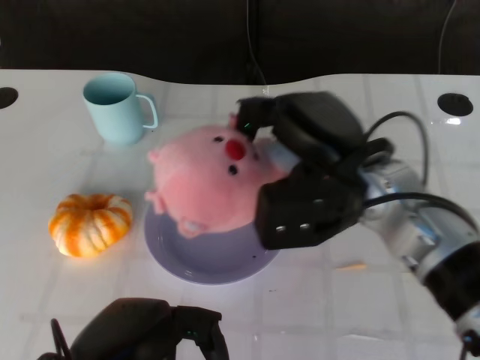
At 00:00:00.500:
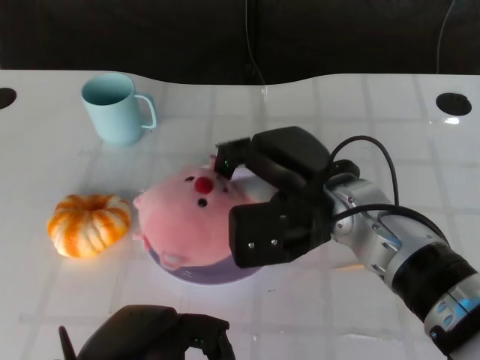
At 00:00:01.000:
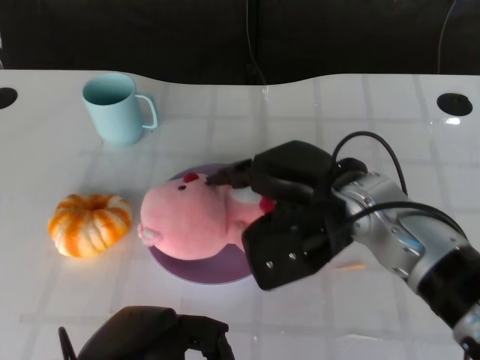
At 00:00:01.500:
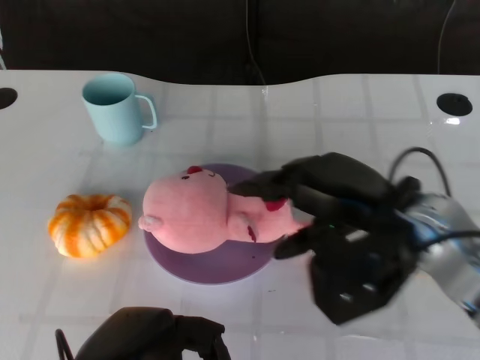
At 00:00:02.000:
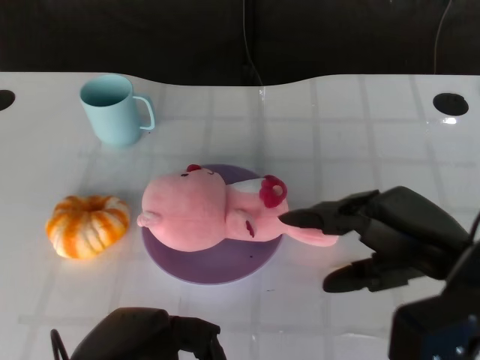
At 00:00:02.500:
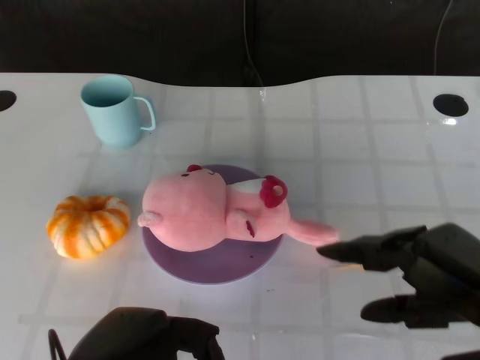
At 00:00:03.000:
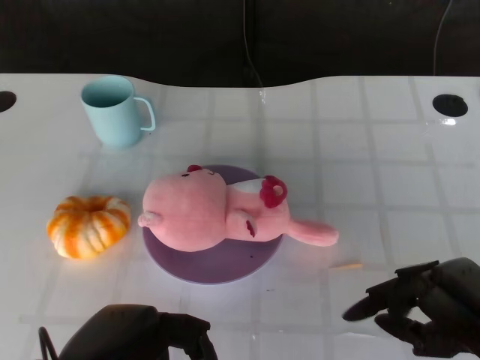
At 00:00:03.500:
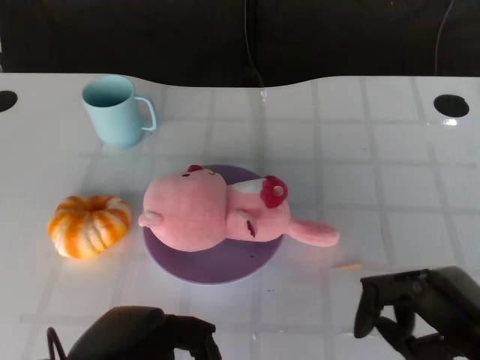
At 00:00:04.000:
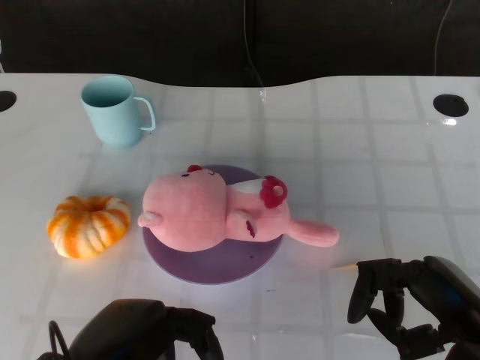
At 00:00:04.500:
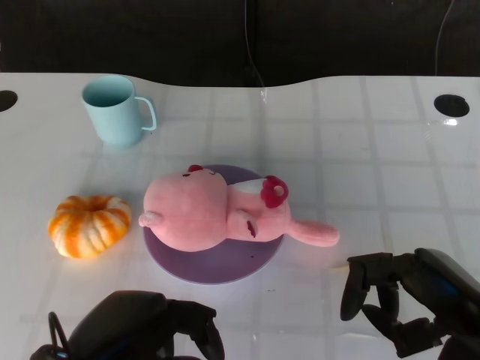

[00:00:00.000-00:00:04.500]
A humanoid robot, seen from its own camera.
Task of the whole recording: Pick up the doll on the other side of the plate and place it into the plate.
Step, 00:00:00.000 to 00:00:01.500: Place the pink doll into the plate with the right gripper.
00:00:00.000 to 00:00:02.000: The right hand shifts about 10 cm to the right and backward.
00:00:02.000 to 00:00:04.500: The right hand changes place by approximately 5 cm.

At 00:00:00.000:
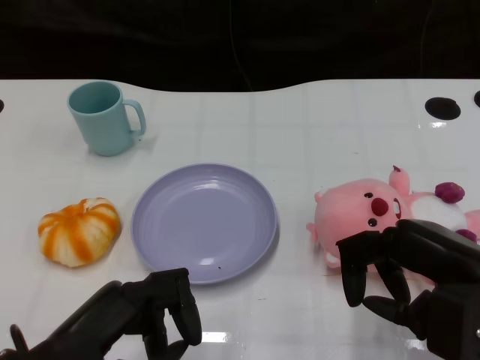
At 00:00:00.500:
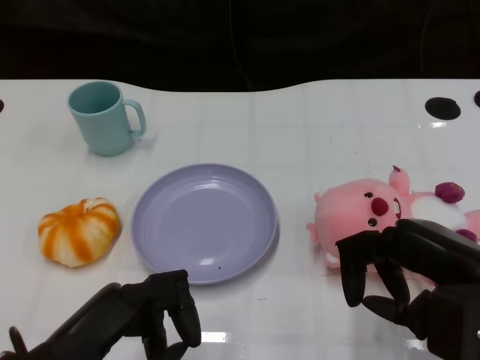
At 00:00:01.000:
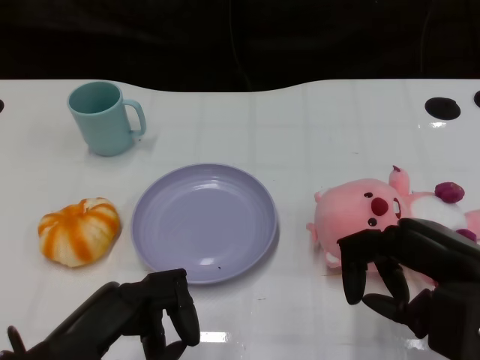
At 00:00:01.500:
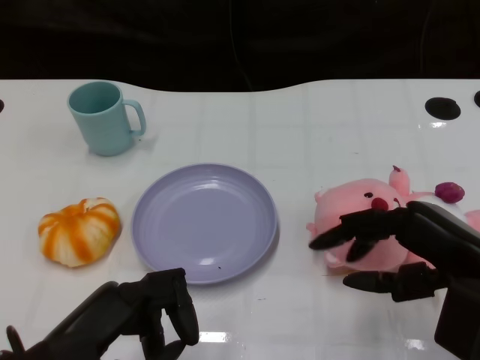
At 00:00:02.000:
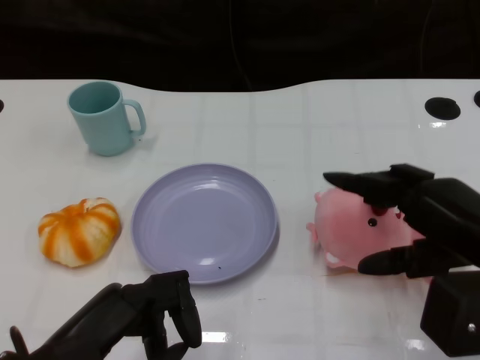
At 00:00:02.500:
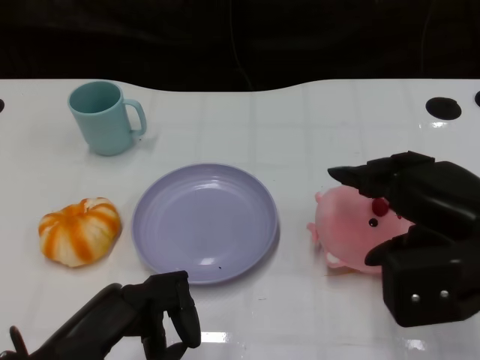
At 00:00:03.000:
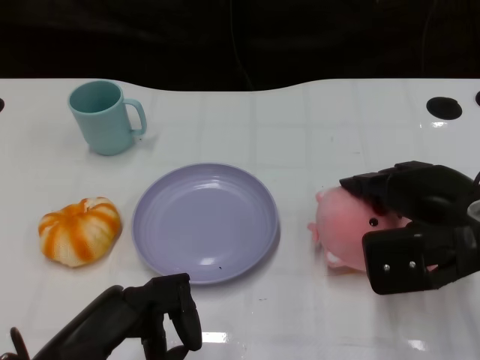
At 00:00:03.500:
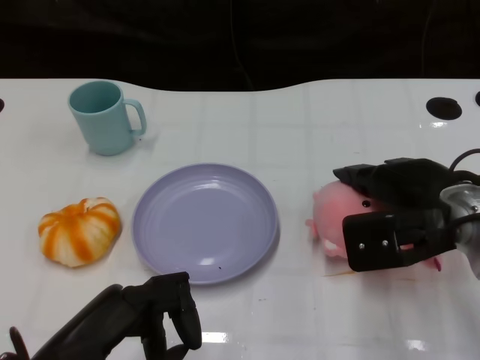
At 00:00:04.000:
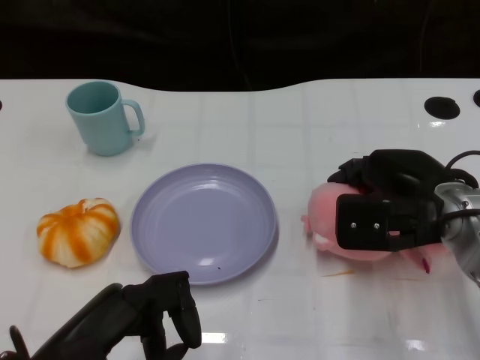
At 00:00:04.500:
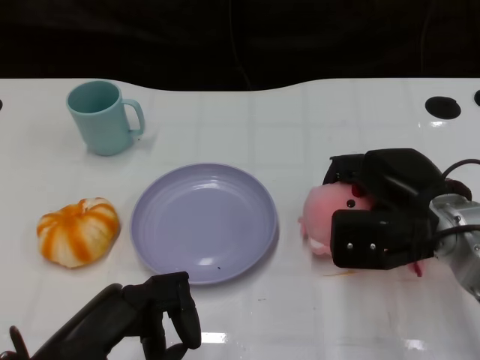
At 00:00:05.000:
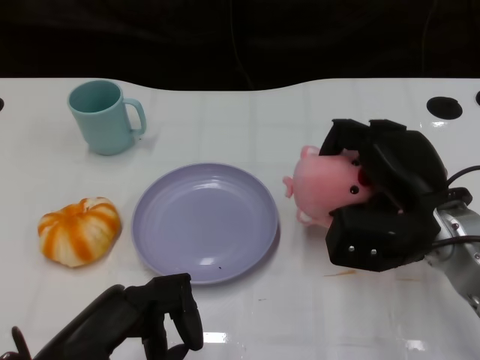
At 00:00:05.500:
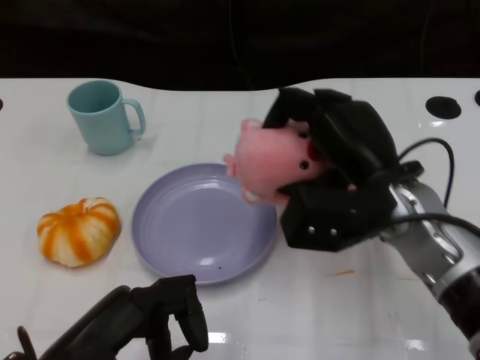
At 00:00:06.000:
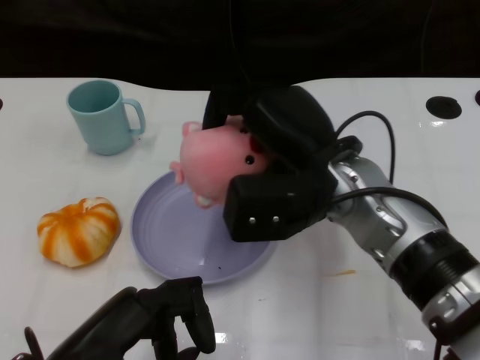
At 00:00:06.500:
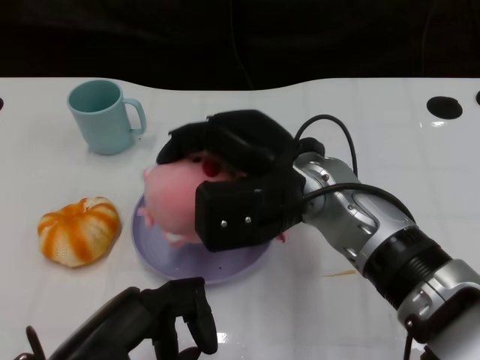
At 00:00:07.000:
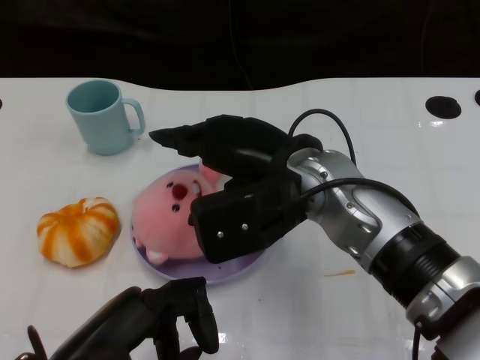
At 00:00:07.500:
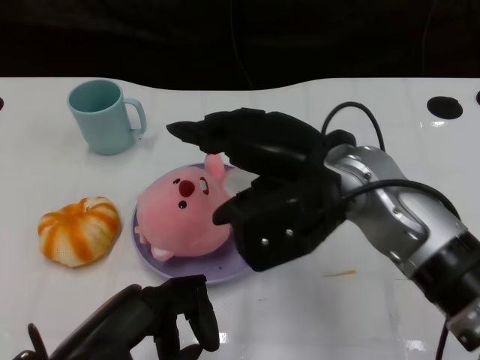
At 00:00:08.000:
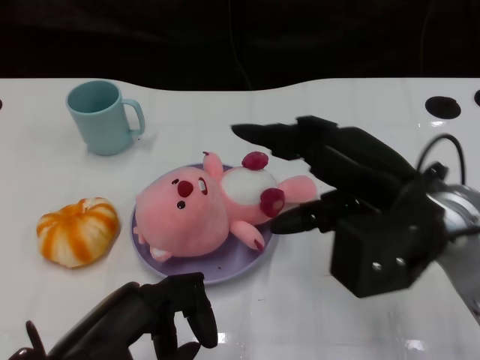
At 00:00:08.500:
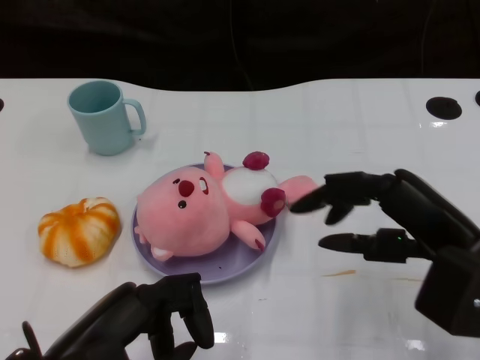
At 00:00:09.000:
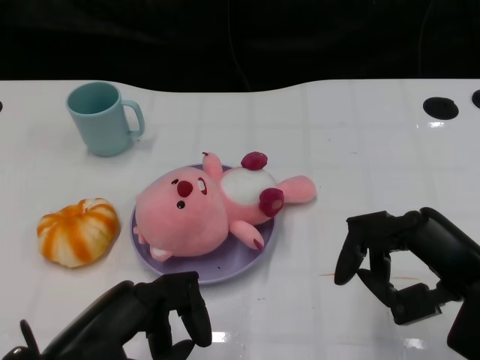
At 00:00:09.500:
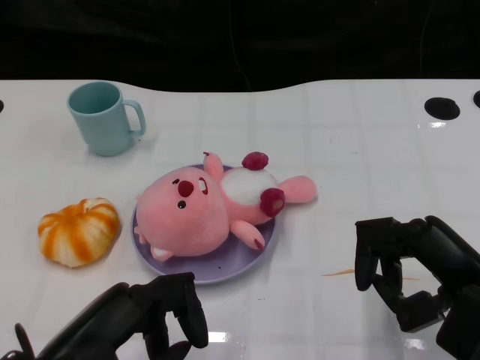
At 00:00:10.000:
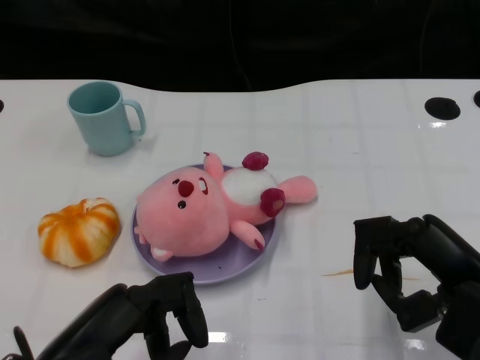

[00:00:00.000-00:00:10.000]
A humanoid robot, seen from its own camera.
Task of the whole recording: Pick up the doll on the other side of the plate and place it into the plate.
Step, 00:00:01.000 to 00:00:05.000: Grasp the pink doll with the right gripper.
Step, 00:00:06.000 to 00:00:07.500: Place the pink doll into the plate with the right gripper.
00:00:02.000 to 00:00:04.000: The right hand moves forward, about 10 cm.
00:00:04.000 to 00:00:06.000: The right hand shifts roughly 10 cm to the left.
00:00:06.000 to 00:00:08.000: The right hand shifts some 10 cm to the right.
00:00:08.000 to 00:00:10.000: The right hand goes some 10 cm to the right, backward and downward.

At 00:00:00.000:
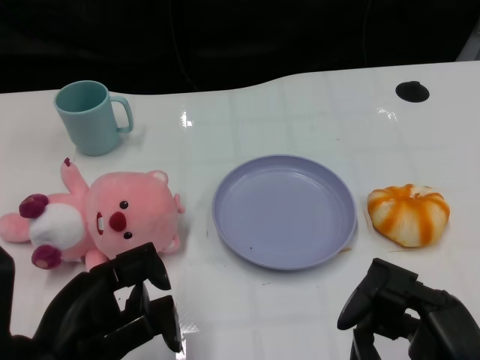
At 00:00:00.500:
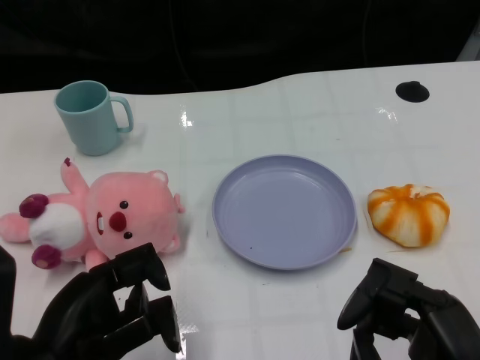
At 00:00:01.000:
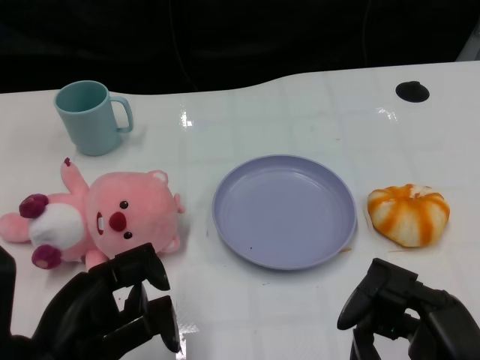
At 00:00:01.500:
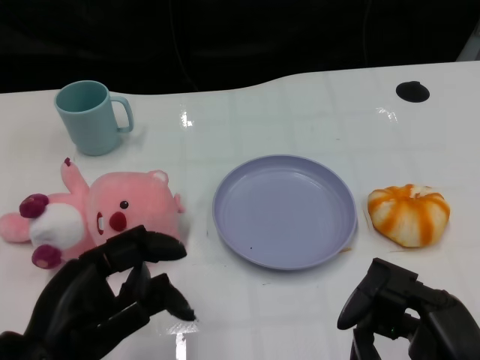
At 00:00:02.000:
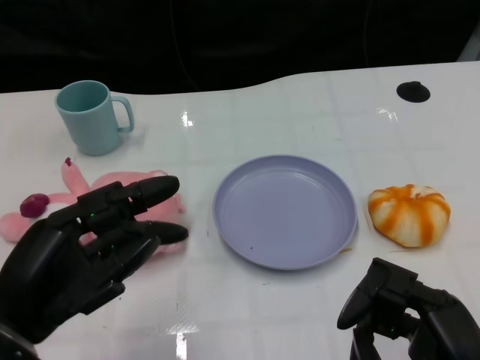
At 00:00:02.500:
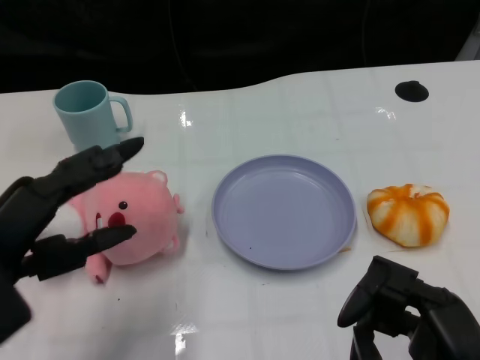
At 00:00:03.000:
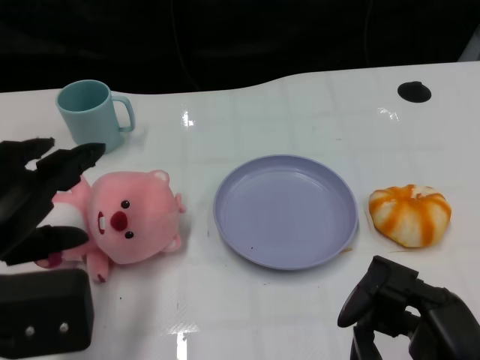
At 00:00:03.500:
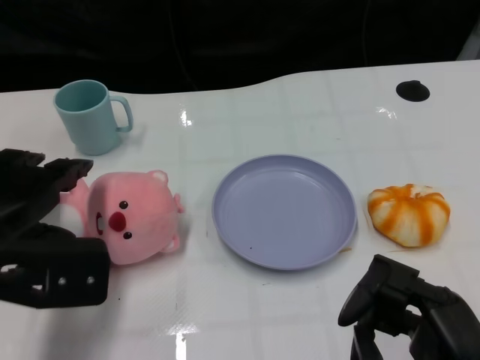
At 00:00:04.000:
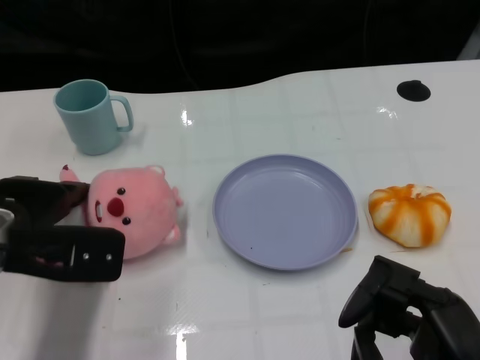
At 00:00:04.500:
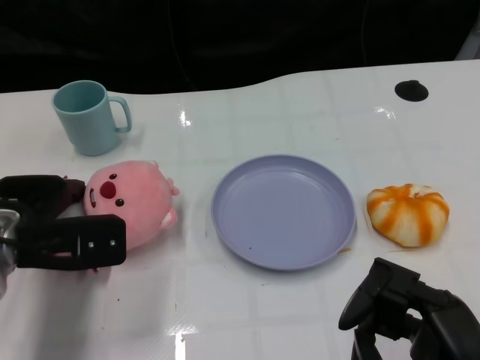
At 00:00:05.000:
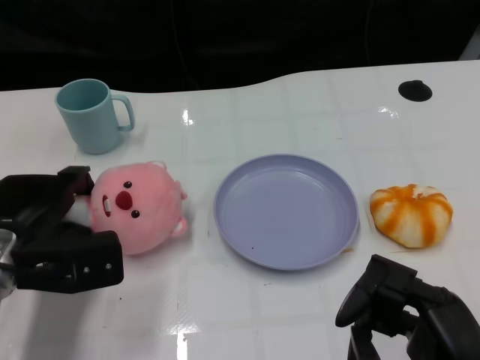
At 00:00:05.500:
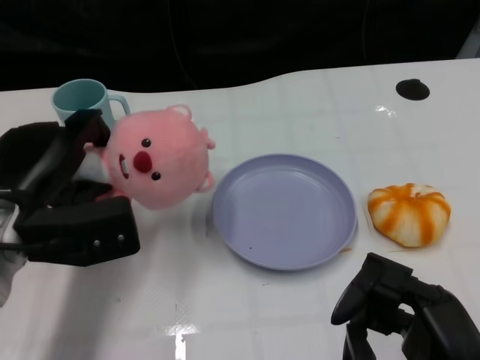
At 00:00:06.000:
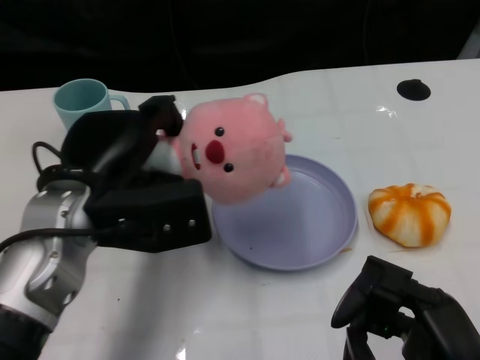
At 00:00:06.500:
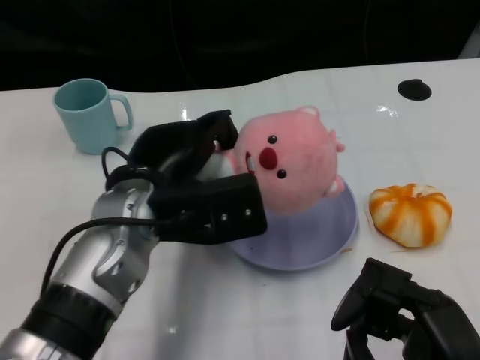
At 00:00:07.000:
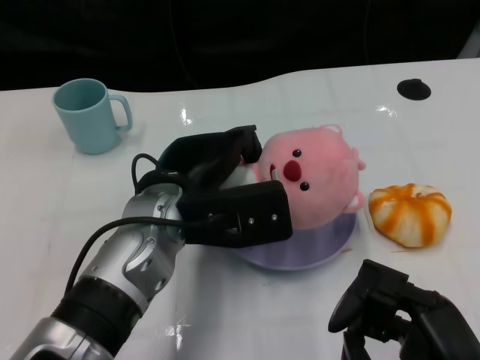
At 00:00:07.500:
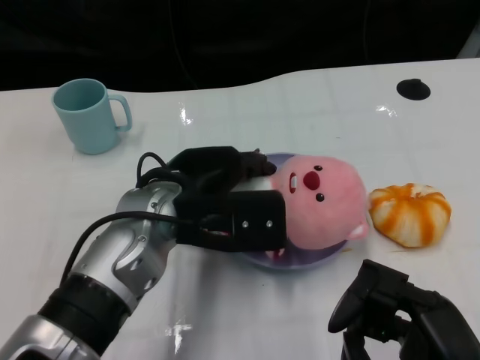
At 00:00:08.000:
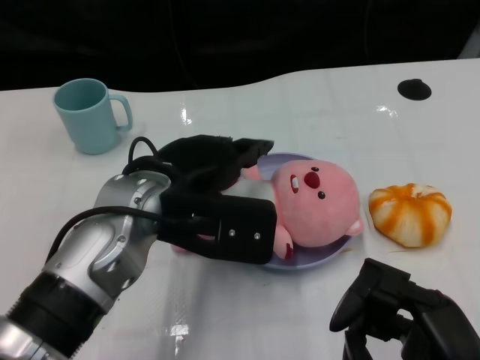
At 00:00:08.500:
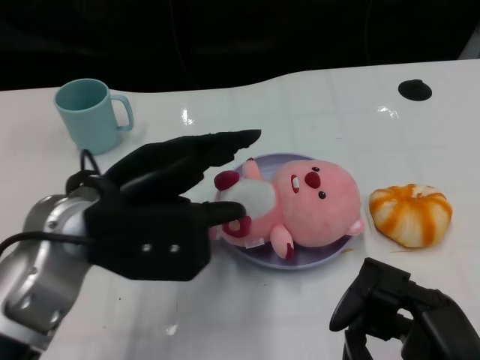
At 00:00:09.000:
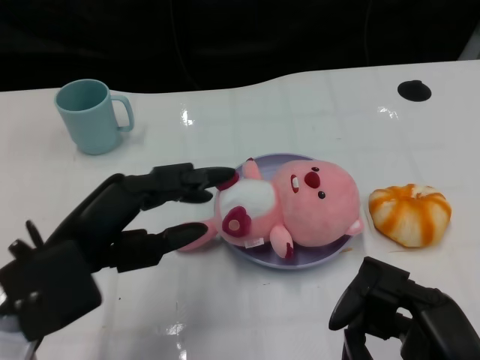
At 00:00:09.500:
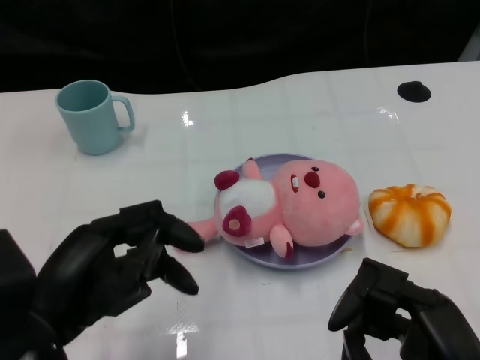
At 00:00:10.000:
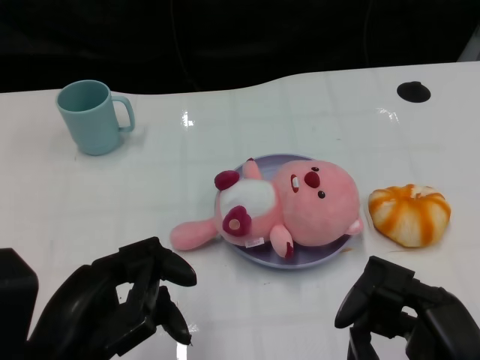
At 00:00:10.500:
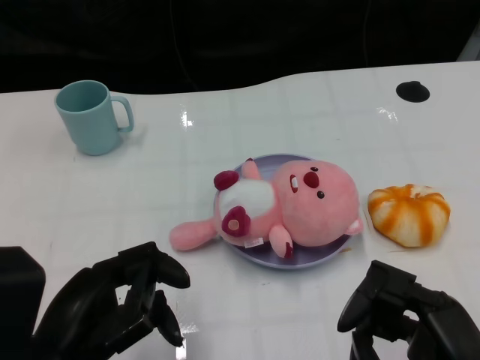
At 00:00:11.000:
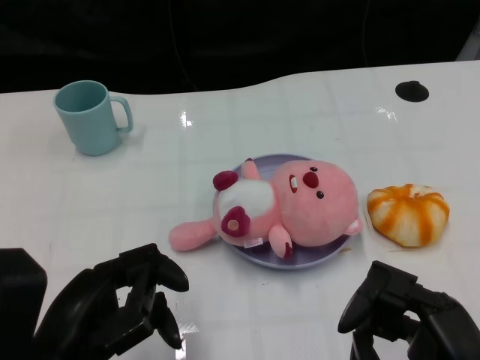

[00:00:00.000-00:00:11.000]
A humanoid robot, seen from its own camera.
Task of the whole recording: Pick up the doll on one side of the plate and place it into the plate.
Step, 00:00:01.500 to 00:00:05.000: Grasp the pink doll with the left gripper.
Step, 00:00:05.500 to 00:00:07.500: Place the pink doll into the plate with the left gripper.
00:00:02.000 to 00:00:03.500: The left hand heads forward, covering approximately 10 cm.
00:00:03.500 to 00:00:05.500: The left hand moves roughly 5 cm.
00:00:05.500 to 00:00:07.500: The left hand is displaced to the right by approximately 15 cm.
00:00:07.500 to 00:00:09.000: The left hand goes some 15 cm to the left and backward.
00:00:09.000 to 00:00:11.000: The left hand heads backward, covering roughly 5 cm.
